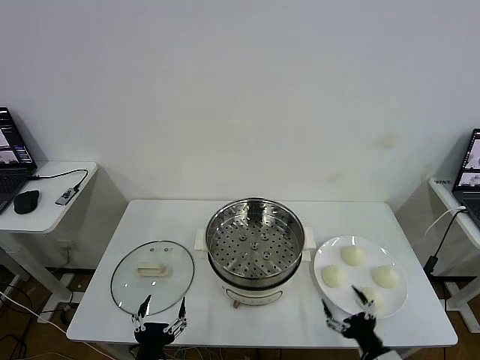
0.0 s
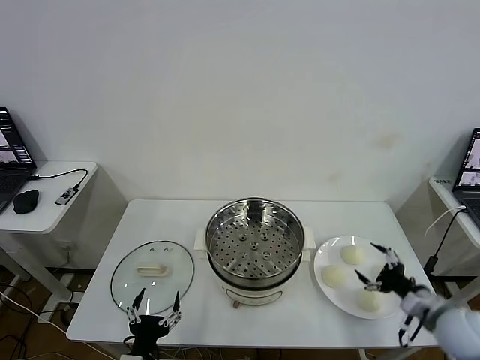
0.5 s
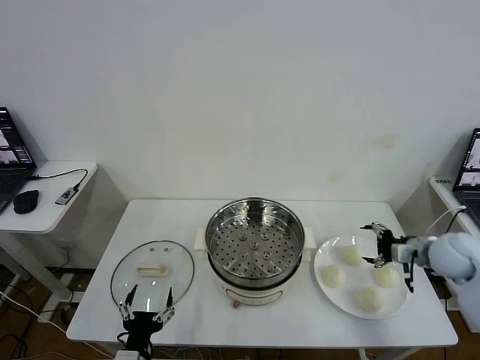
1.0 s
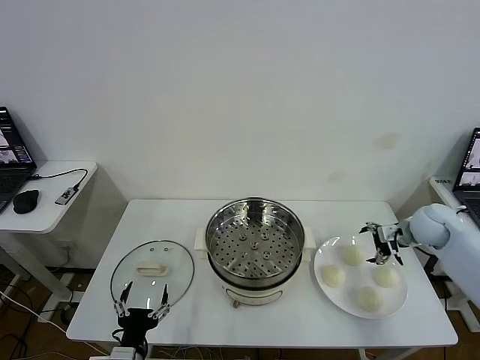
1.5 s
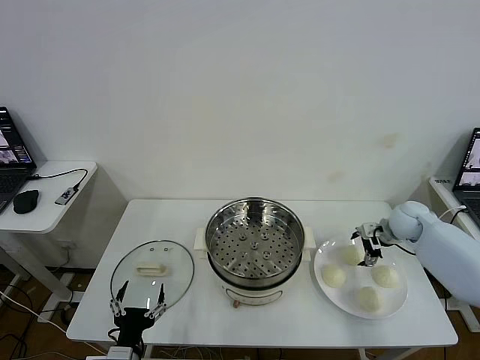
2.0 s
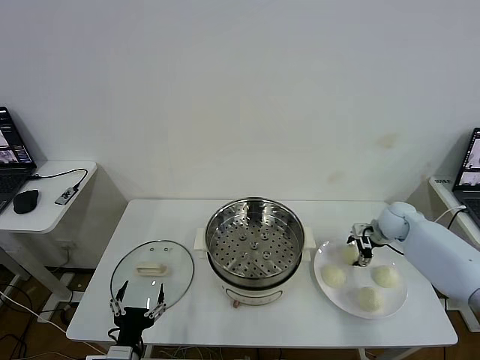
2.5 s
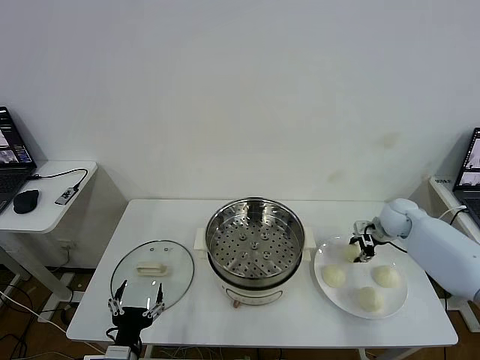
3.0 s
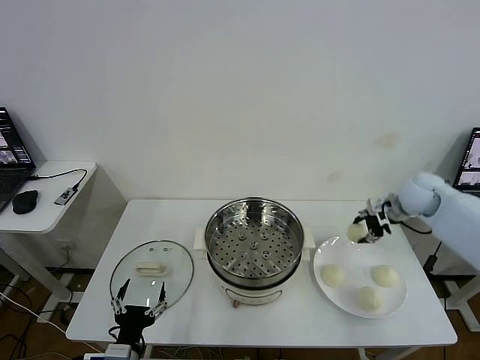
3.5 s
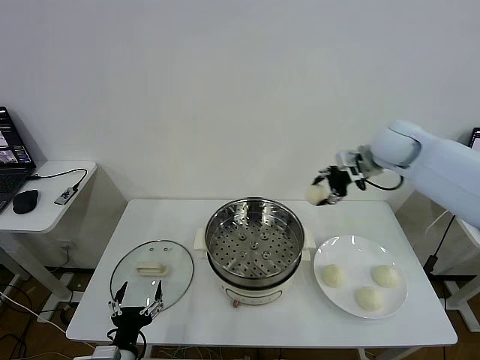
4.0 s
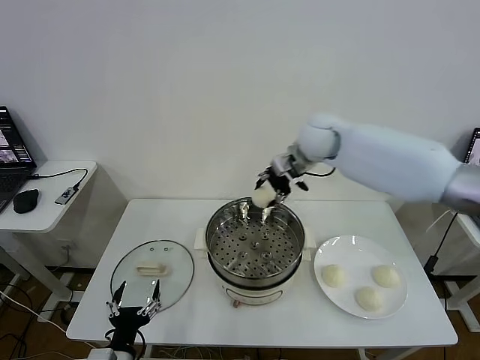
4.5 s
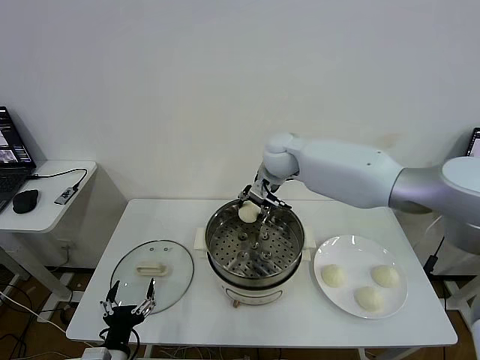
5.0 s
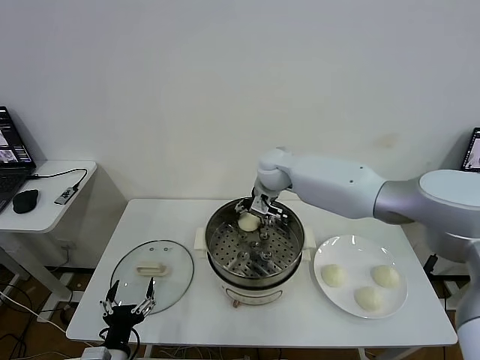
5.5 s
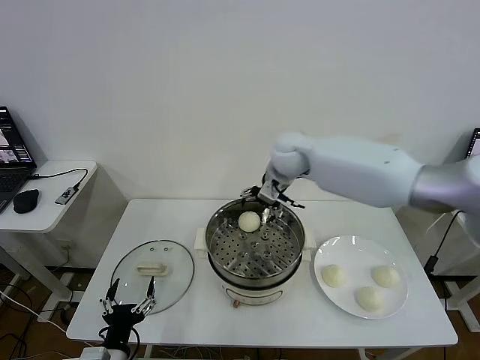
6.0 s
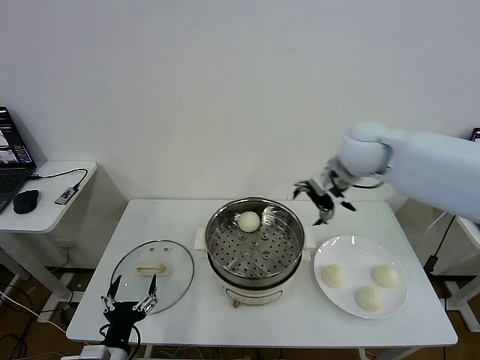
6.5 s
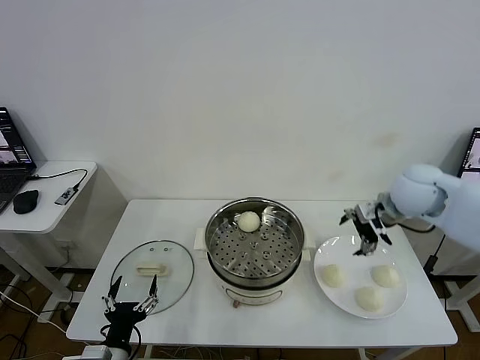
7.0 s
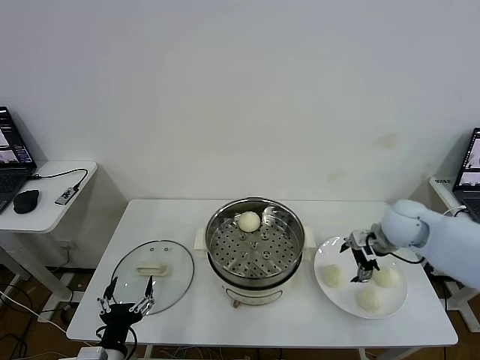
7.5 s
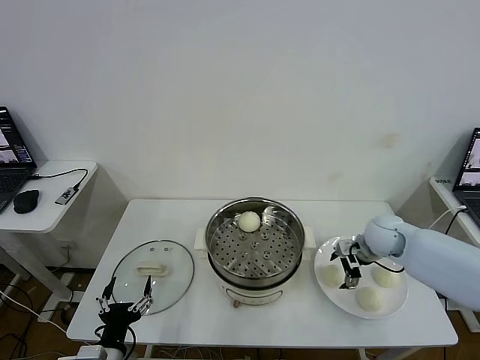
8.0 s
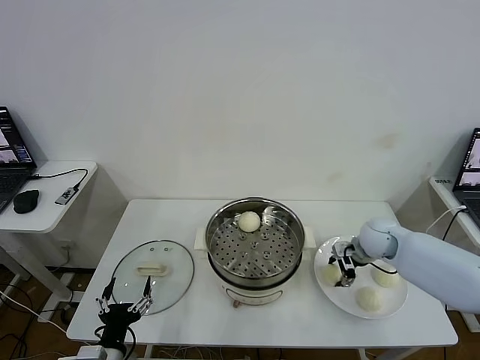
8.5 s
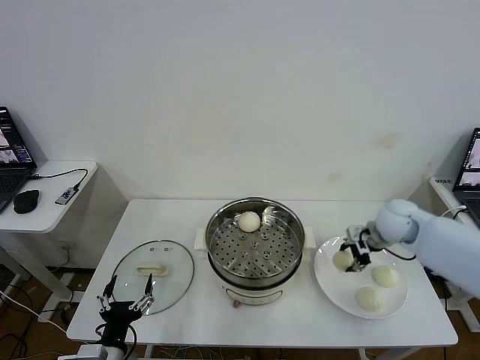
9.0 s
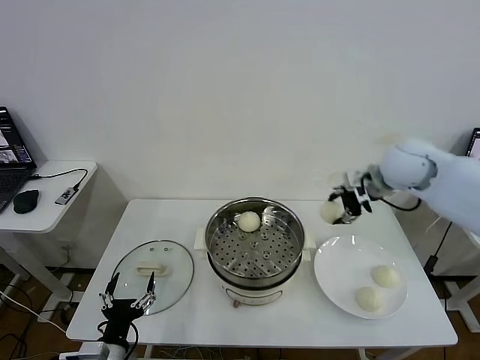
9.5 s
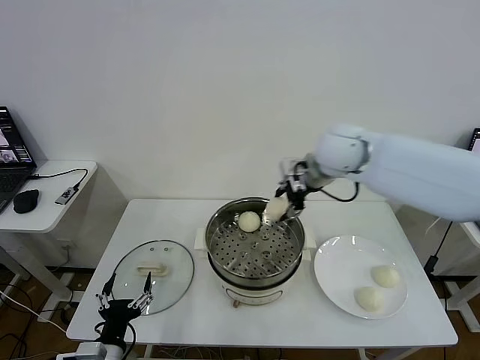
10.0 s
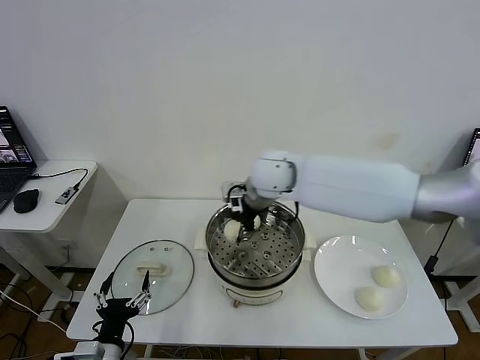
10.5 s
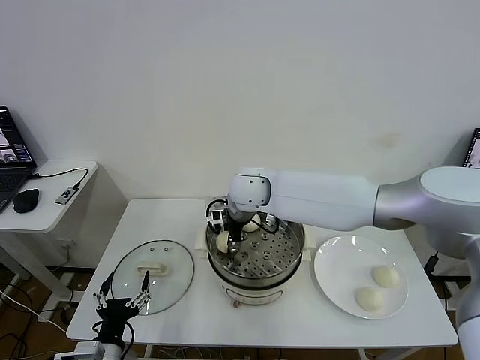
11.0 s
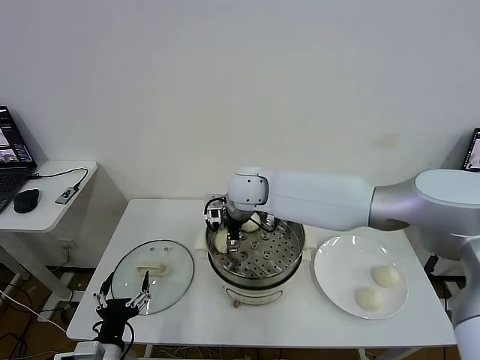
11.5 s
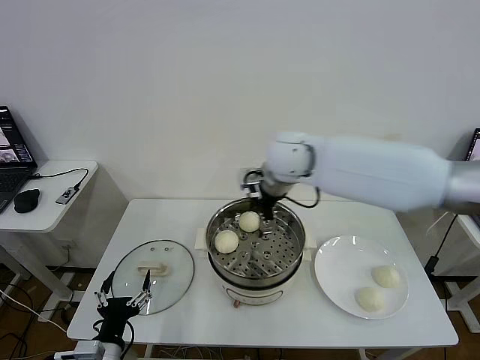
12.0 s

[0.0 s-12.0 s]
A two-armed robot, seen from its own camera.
Task of the whole recording: take steamed baozi put them in steamer then cover it.
Step, 0.0 to 2.5 s: Grasp the baozi in the plate with right gripper.
Step, 3.0 to 5.5 s: Place the baozi on the steamer with right gripper.
Step, 6.0 to 8.5 s: Grasp the baozi in the plate with right gripper.
Step, 9.0 to 11.5 s: Place the baozi on the steamer with right gripper.
2.0 to 4.0 s: The right gripper moves upward and to the left, some 25 cm, and closes.
4.0 to 6.0 s: The right gripper goes roughly 20 cm to the left, and opens up.
6.0 to 8.0 s: The right gripper travels to the right, downward and backward by approximately 30 cm.
8.0 to 10.0 s: The right gripper travels upward and to the left by roughly 25 cm, and closes.
10.0 to 12.0 s: The right gripper travels to the left by approximately 10 cm, and opens its fingers.

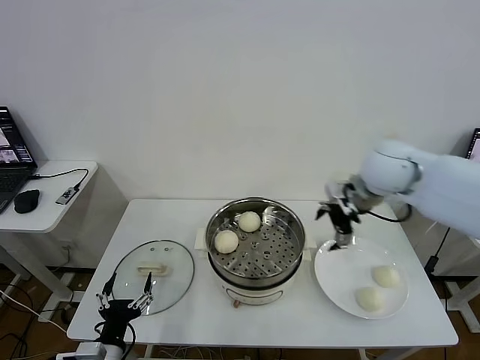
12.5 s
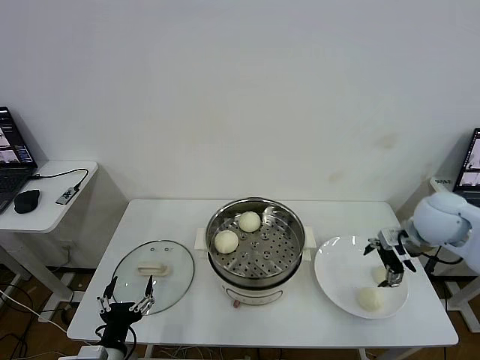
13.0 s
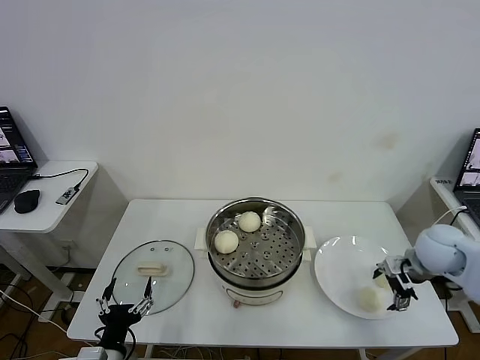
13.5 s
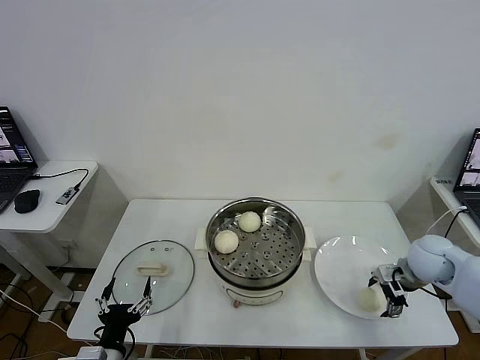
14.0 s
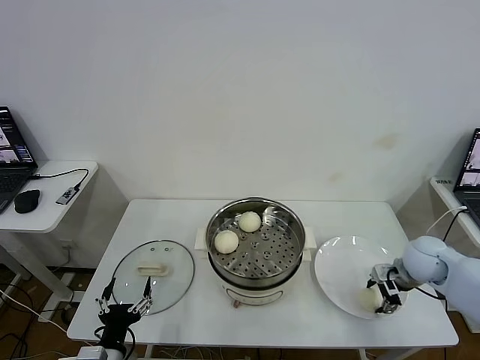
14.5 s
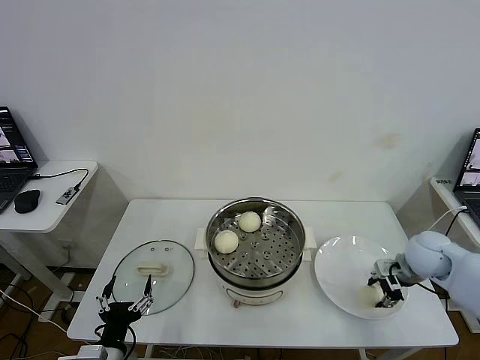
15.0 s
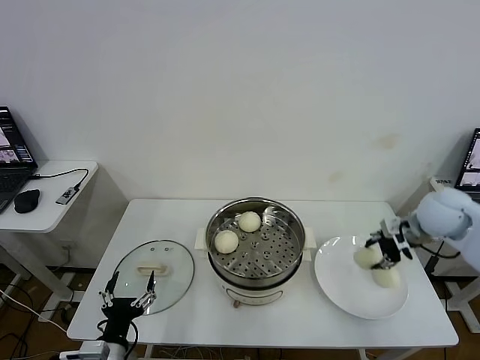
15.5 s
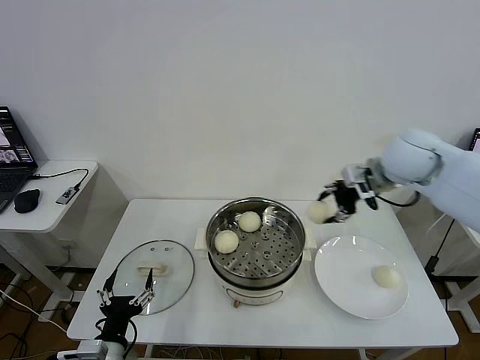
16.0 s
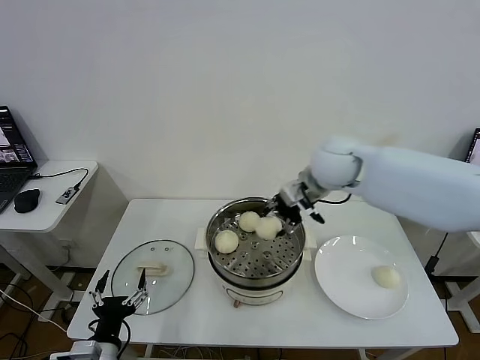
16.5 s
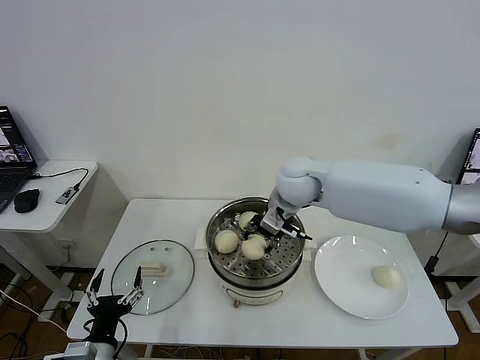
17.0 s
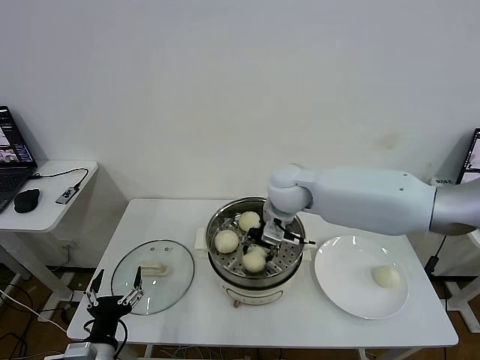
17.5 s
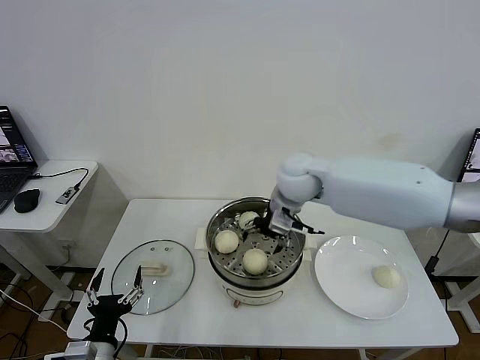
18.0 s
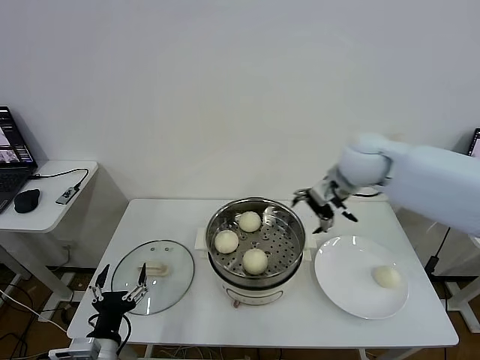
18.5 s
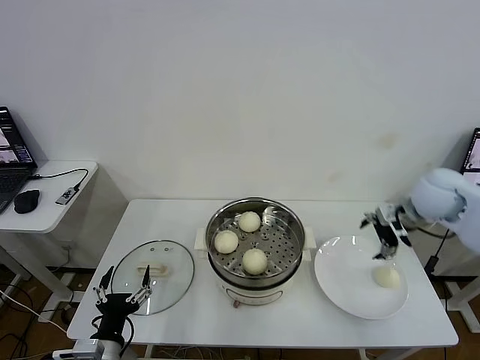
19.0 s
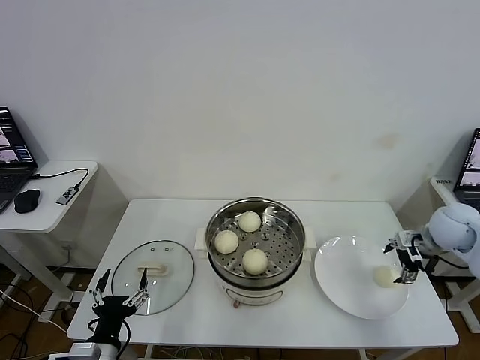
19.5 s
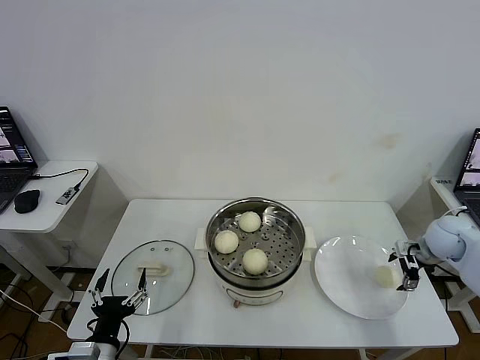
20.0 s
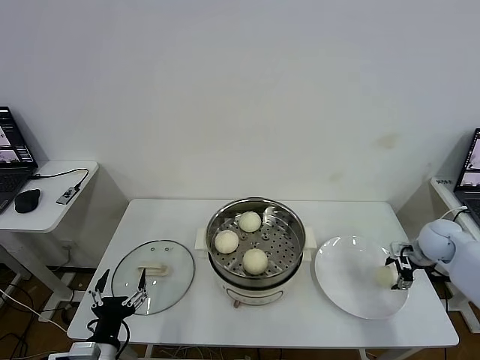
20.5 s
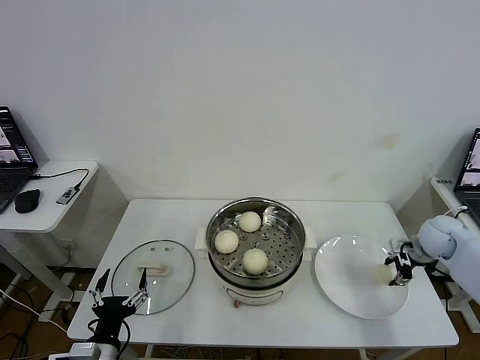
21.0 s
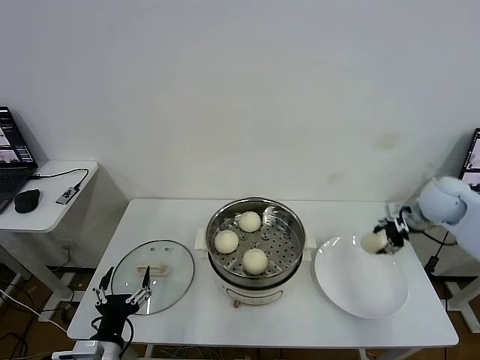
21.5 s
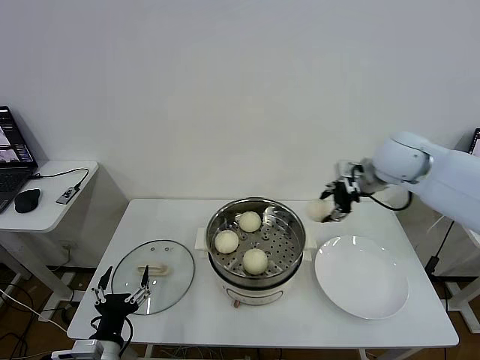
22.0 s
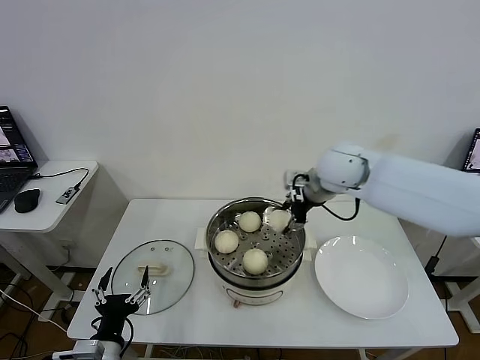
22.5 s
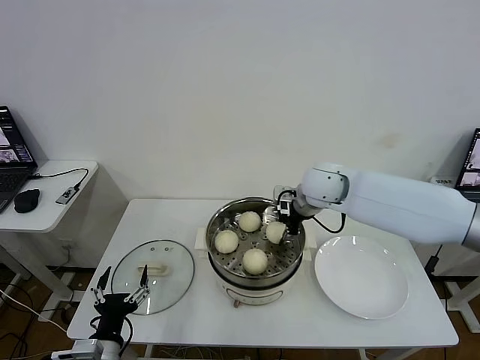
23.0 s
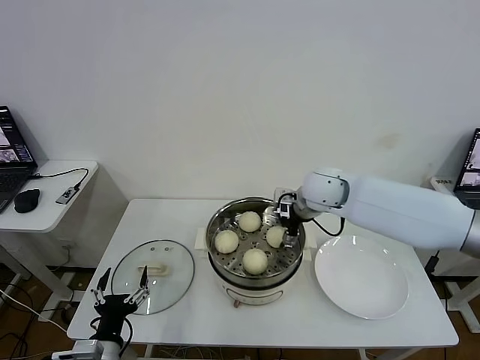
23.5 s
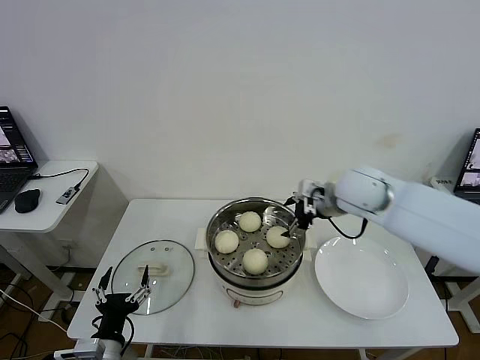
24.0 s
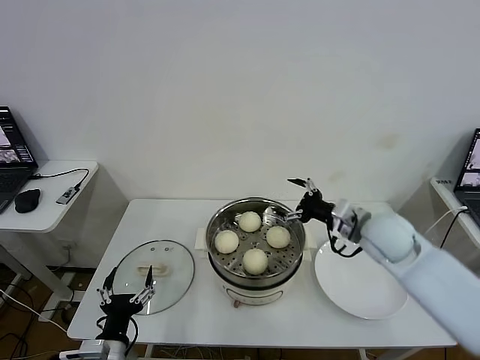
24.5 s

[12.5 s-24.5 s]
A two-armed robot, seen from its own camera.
Task of the whole recording: take steamed baozi put them in steamer then cover it.
Step, 12.5 to 14.5 s: Grasp the baozi in the plate with right gripper.
Step, 15.0 to 18.0 s: Place the baozi on the steamer with right gripper.
Step, 18.5 to 20.5 s: Grasp the baozi in the plate with right gripper.
Step, 21.0 to 23.5 s: Place the baozi on the steamer with right gripper.
12.5 to 14.5 s: The right gripper moves downward and to the right, some 25 cm, and closes.
14.5 to 16.5 s: The right gripper goes some 30 cm to the left, upward and forward.
16.5 to 18.5 s: The right gripper goes approximately 5 cm to the right, and opens.
18.5 to 20.5 s: The right gripper moves to the right and downward, roughly 35 cm, and closes.
20.5 to 22.5 s: The right gripper travels to the left and upward by about 35 cm, and closes.
22.5 to 24.5 s: The right gripper shifts roughly 15 cm backward, downward and to the right, and opens.

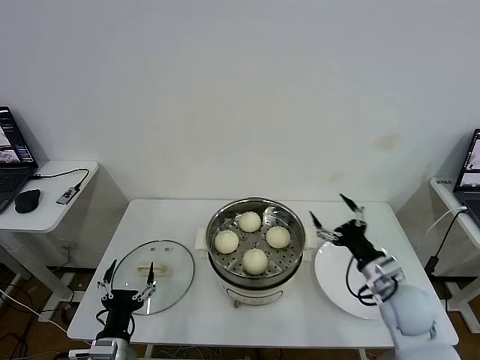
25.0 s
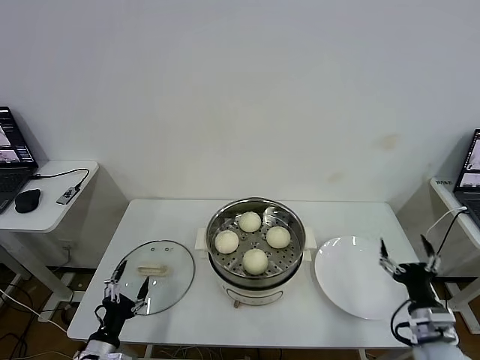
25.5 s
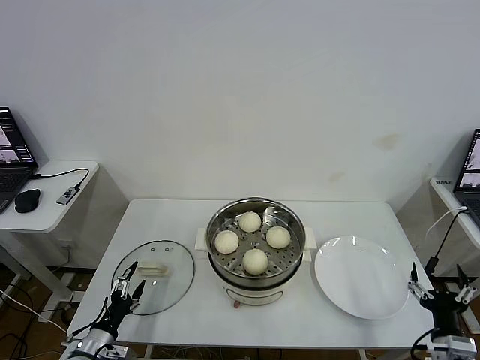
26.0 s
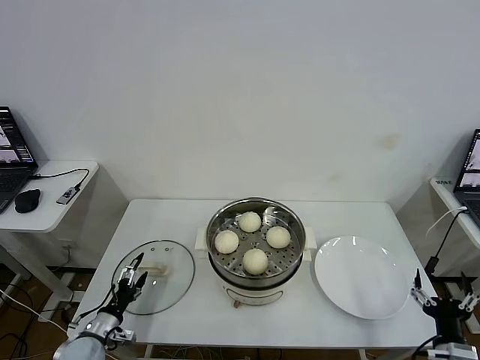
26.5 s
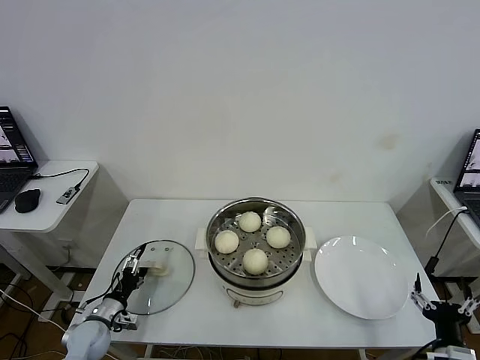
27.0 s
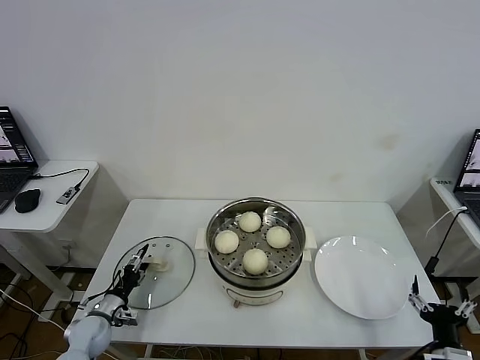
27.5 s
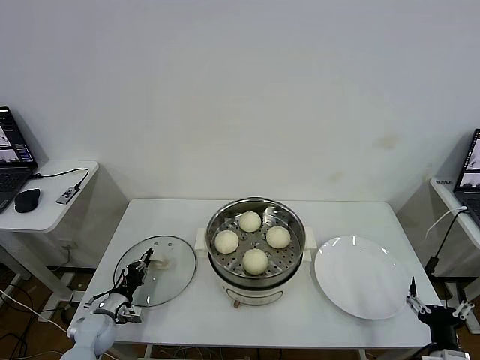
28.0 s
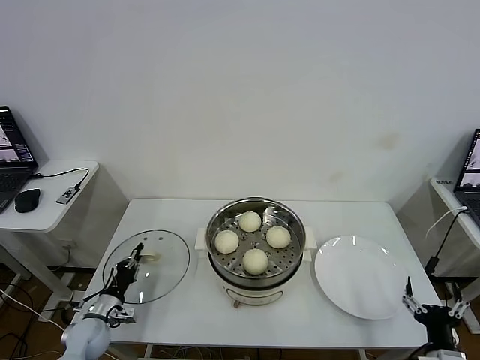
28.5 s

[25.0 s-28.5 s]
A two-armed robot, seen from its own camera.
Task of the whole recording: take steamed baozi put them in steamer then cover it.
Step, 25.0 to 28.0 s: Grasp the pot lid with left gripper.
25.0 to 27.0 s: The right gripper is displaced backward and downward by some 20 cm, while the left gripper heads forward, to the left and downward, covering about 20 cm.
27.0 to 28.5 s: The left gripper closes.
